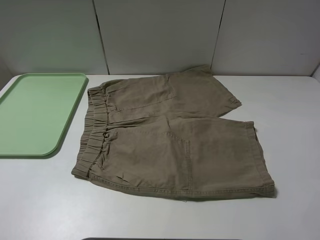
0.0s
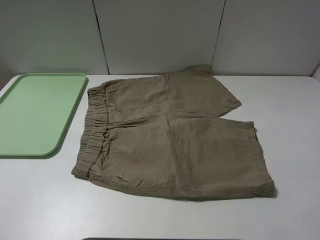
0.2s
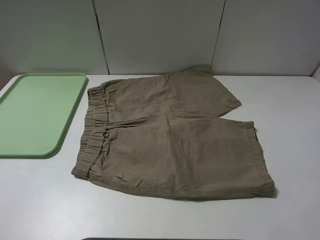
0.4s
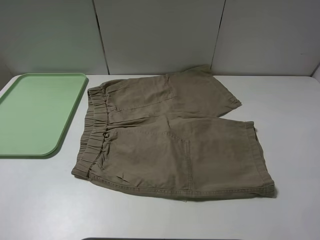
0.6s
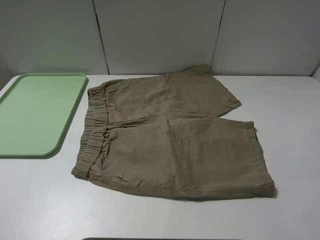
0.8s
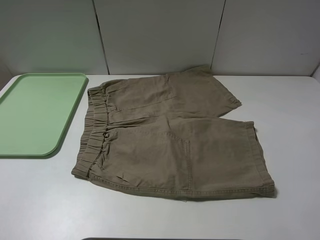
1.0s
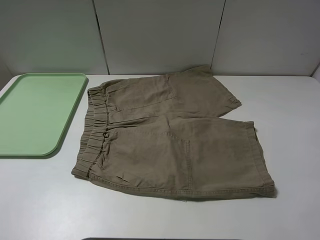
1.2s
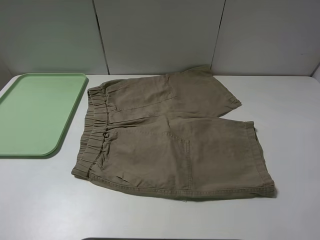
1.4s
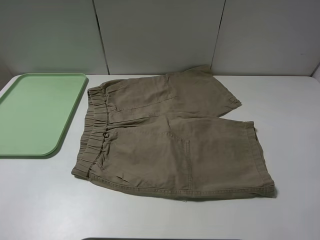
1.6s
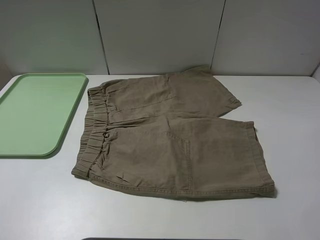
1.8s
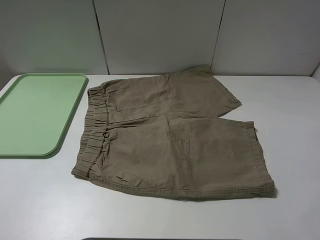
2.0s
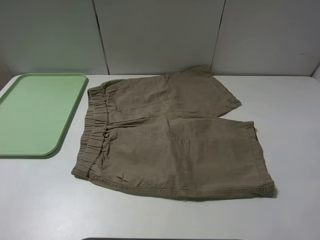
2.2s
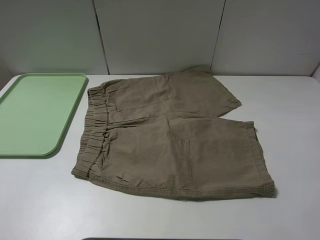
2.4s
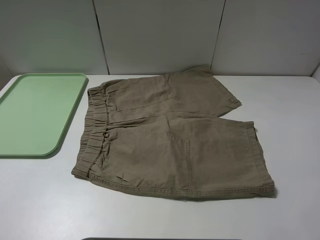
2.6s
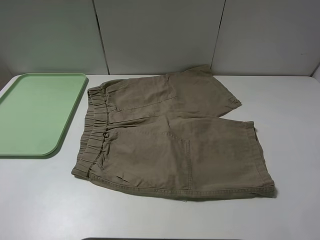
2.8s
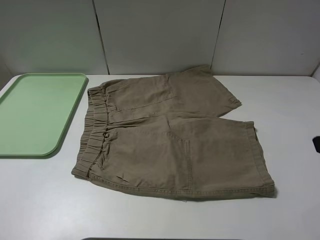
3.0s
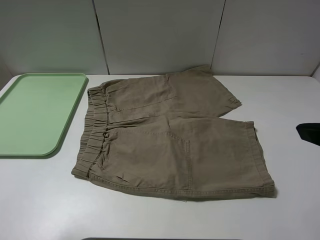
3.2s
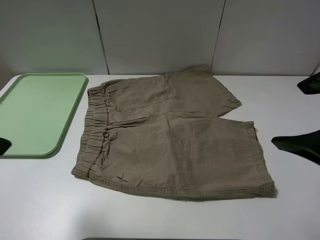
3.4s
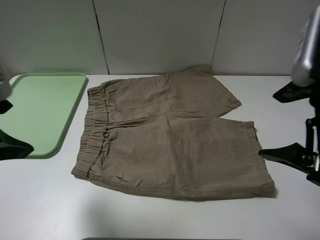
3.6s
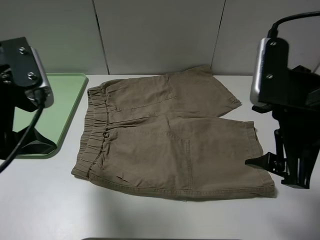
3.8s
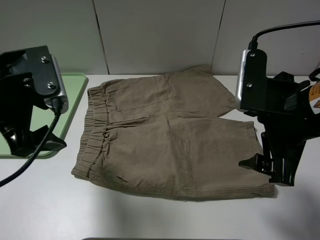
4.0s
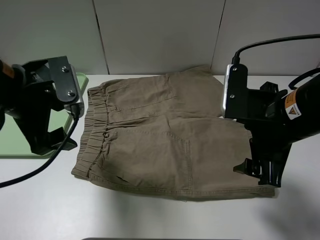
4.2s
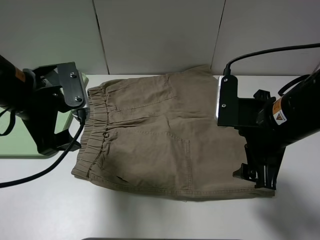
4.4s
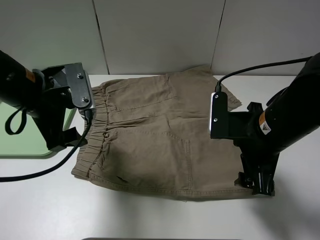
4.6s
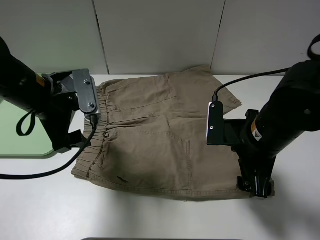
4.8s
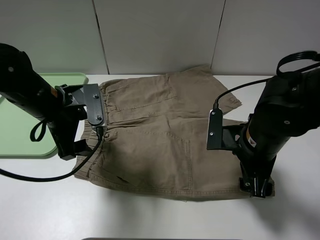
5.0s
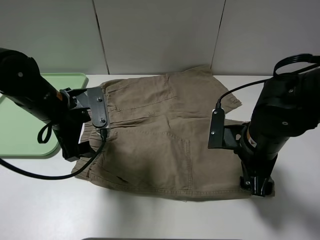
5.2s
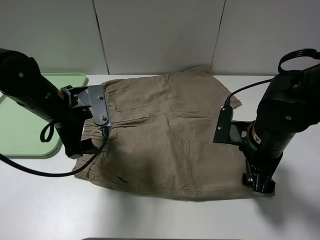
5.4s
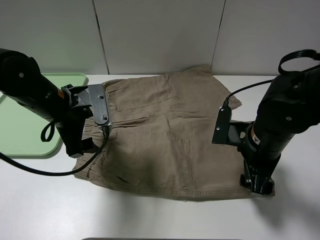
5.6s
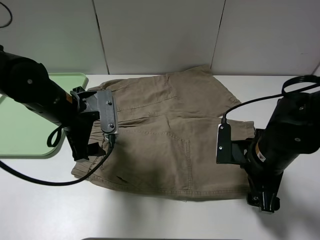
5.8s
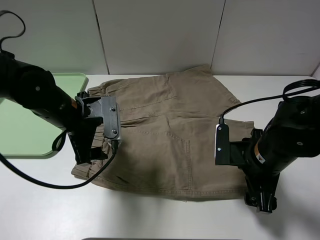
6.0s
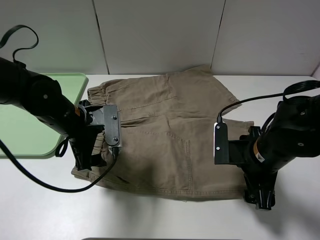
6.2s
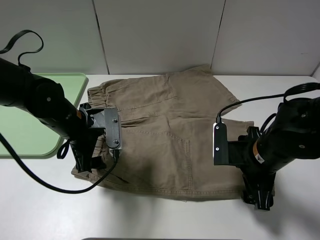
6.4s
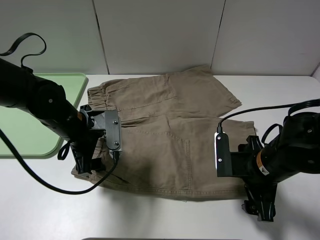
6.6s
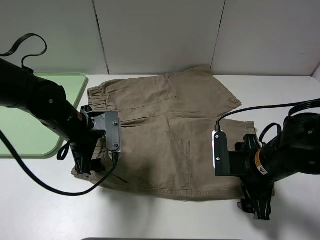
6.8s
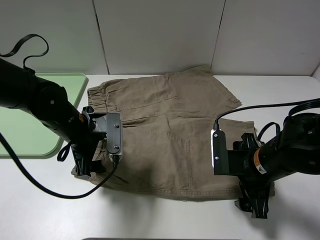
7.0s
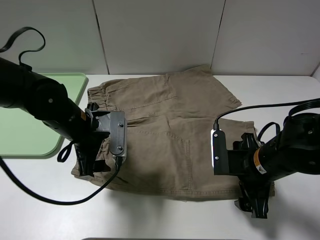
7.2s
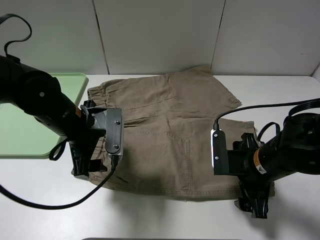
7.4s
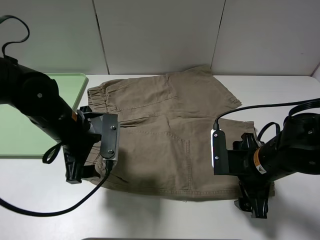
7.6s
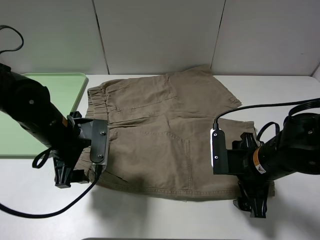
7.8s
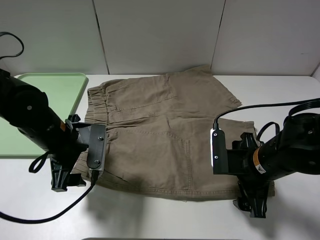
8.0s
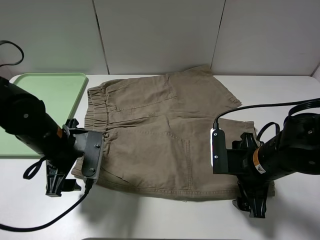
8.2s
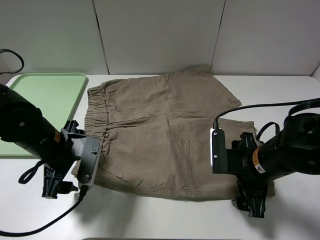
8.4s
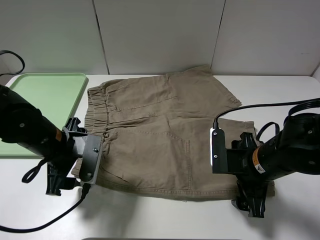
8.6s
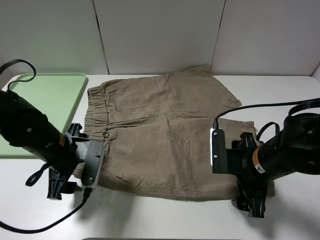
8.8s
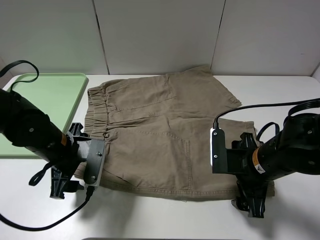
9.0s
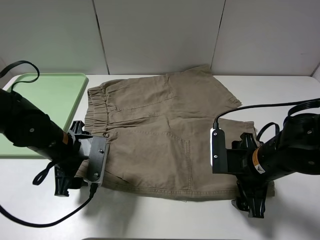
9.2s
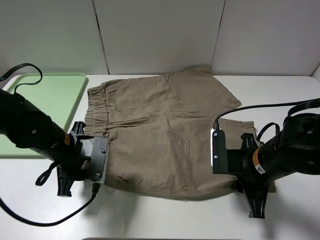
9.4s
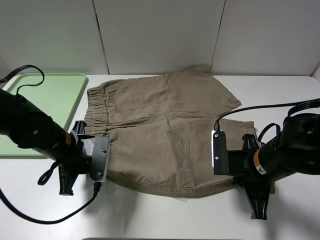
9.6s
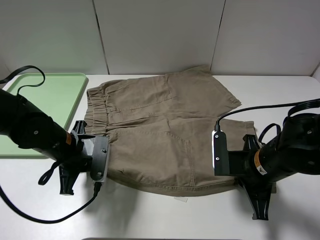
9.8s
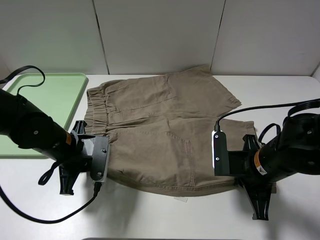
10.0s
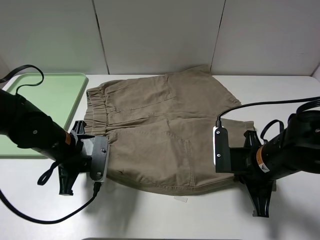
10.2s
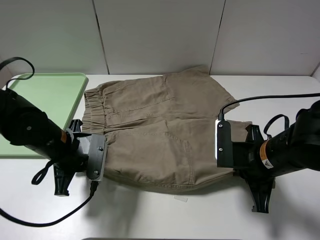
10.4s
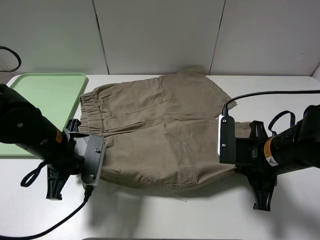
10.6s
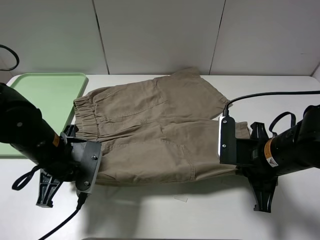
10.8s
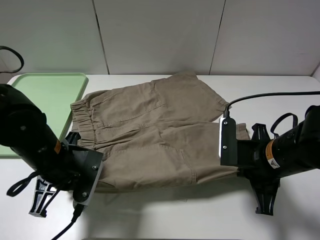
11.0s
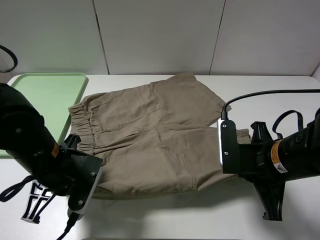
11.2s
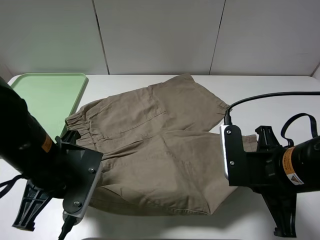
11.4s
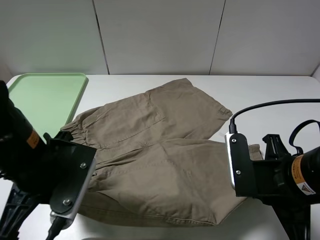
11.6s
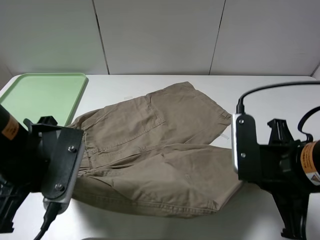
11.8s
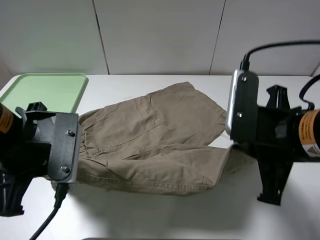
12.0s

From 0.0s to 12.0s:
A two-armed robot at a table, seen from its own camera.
Task of the whole recording: fold the khaki jeans in half with two grippers, then fold them in half again, and use the left claw to place the folded fold khaki jeans on the tray.
Step, from 0.0s to 9.6s: Grasp the khaki trousers with the left gripper.
From 0.0s to 1.6s: Both grippers stay about where they are.
From 3.0s to 4.4s: The right gripper goes approximately 15 cm downward, to the left and forward, while the left gripper moves forward, downward and to the right, approximately 20 cm.
From 4.4s to 6.0s: The two grippers go some 10 cm downward.
From 6.0s to 7.6s: There are only small adjustments of the grippers.
From 7.6s to 9.0s: The left gripper shifts by about 5 cm.
From 9.0s to 10.4s: The left gripper closes, while the right gripper closes up.
From 10.4s to 12.0s: The left gripper heads upward and backward, covering some 15 cm, while the right gripper travels upward by approximately 10 cm.

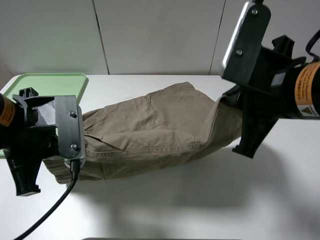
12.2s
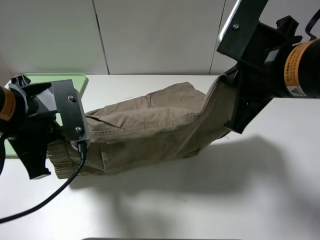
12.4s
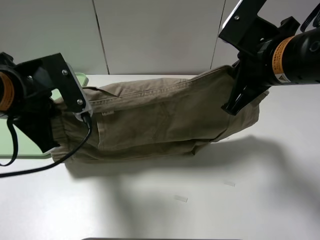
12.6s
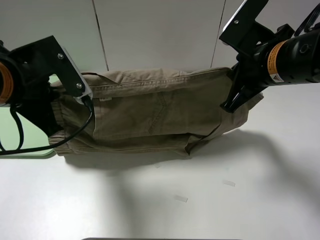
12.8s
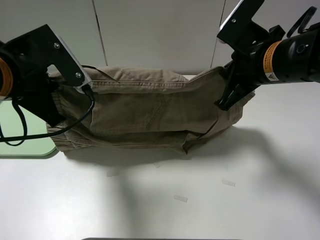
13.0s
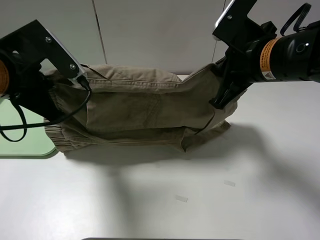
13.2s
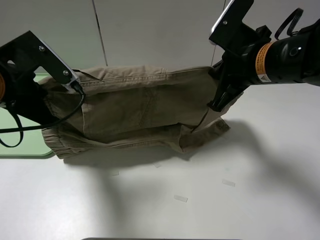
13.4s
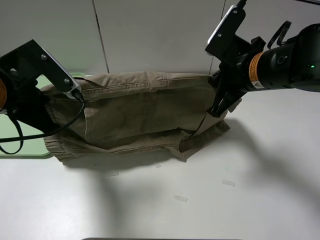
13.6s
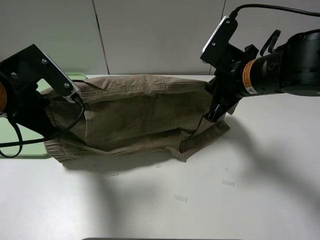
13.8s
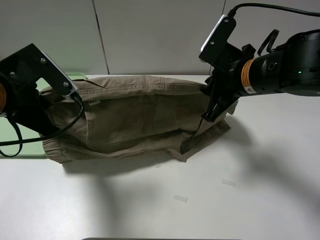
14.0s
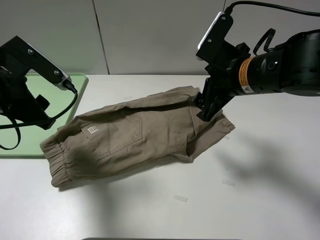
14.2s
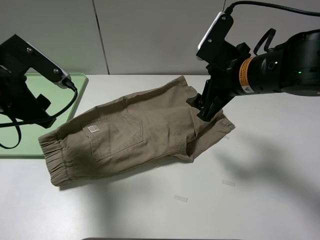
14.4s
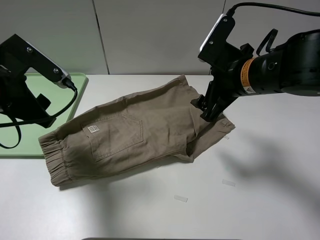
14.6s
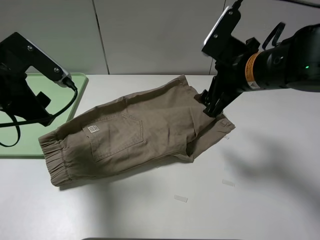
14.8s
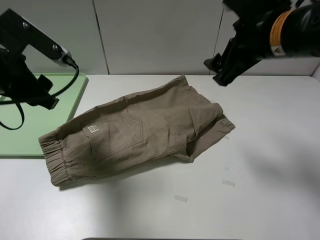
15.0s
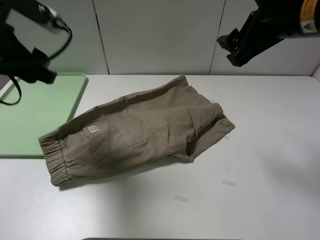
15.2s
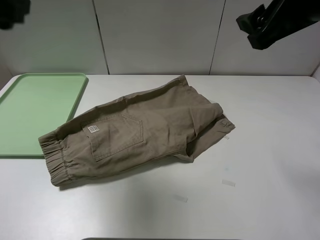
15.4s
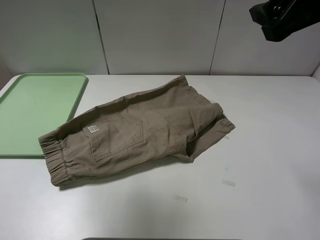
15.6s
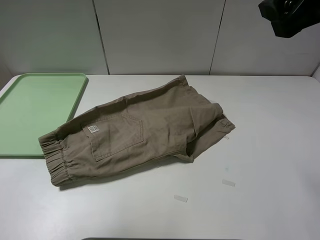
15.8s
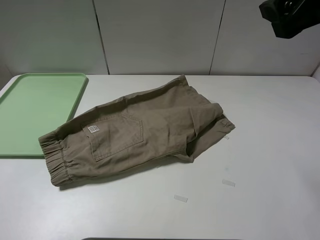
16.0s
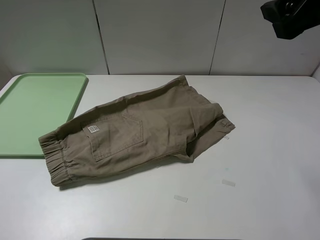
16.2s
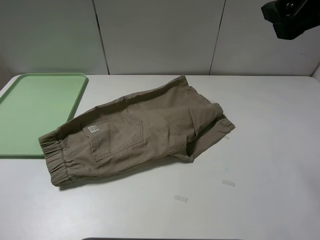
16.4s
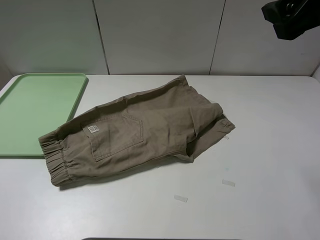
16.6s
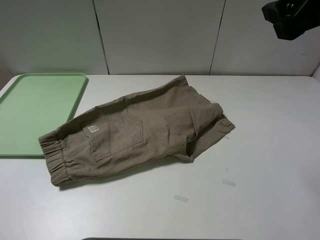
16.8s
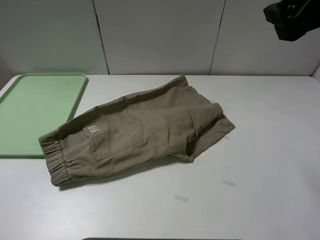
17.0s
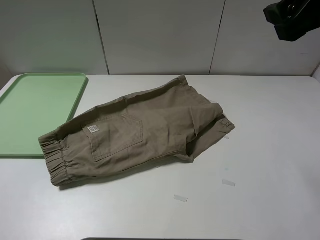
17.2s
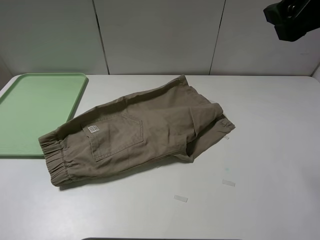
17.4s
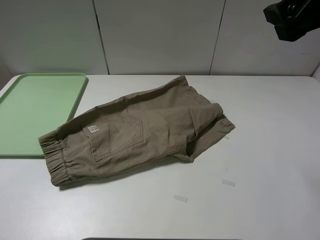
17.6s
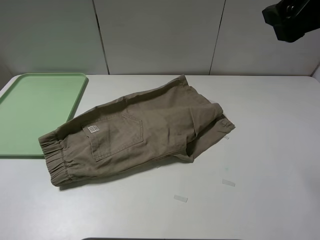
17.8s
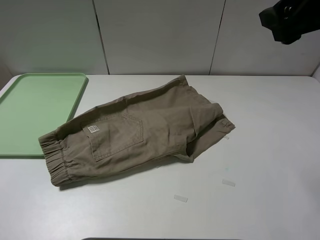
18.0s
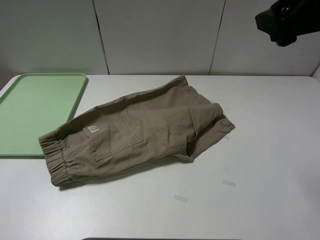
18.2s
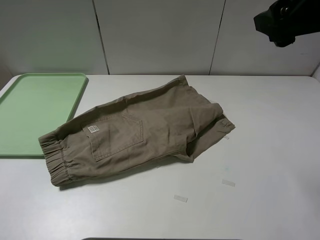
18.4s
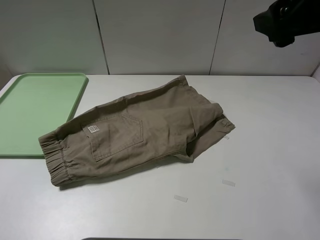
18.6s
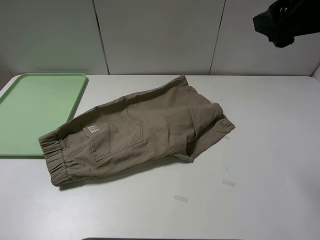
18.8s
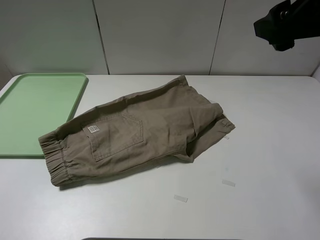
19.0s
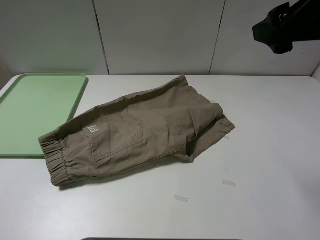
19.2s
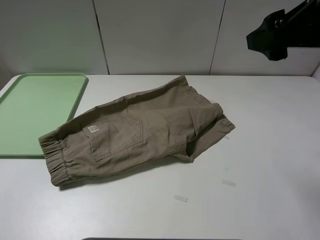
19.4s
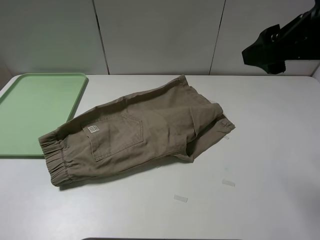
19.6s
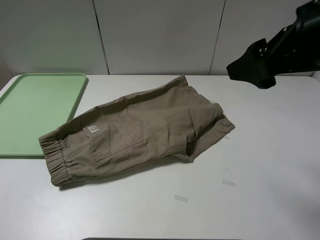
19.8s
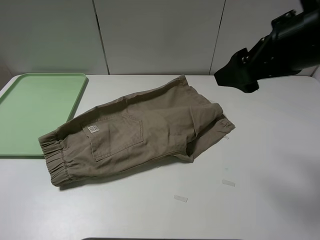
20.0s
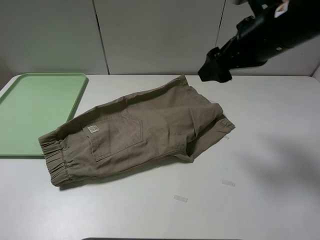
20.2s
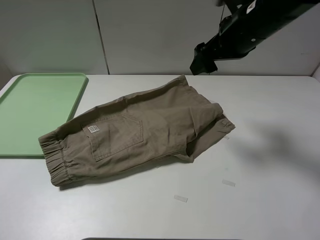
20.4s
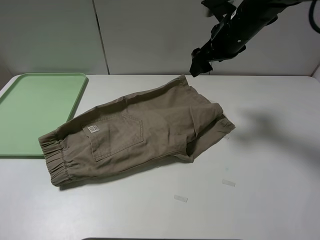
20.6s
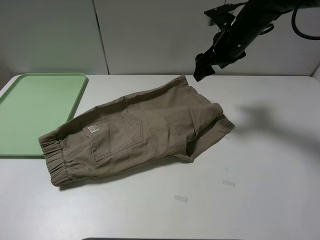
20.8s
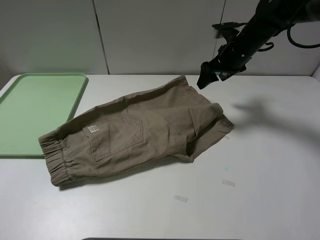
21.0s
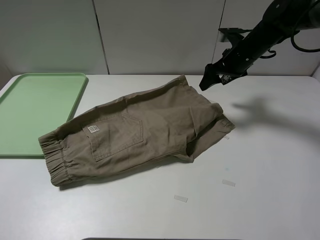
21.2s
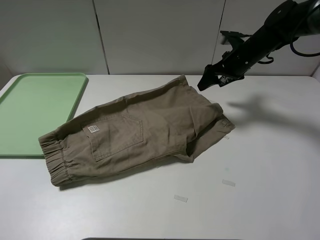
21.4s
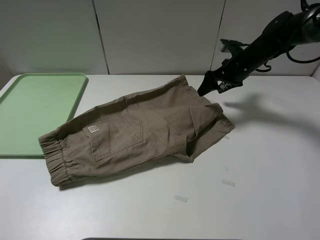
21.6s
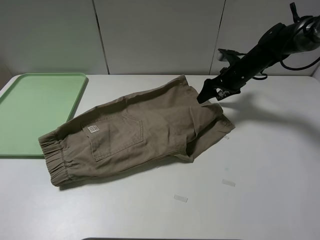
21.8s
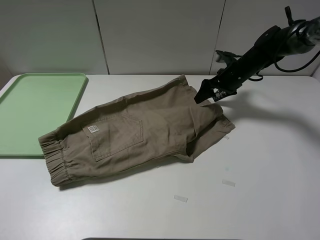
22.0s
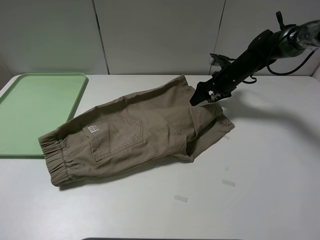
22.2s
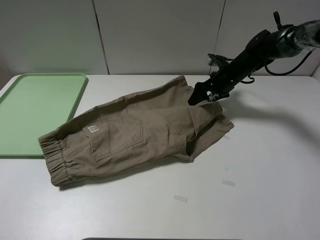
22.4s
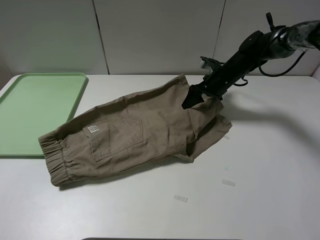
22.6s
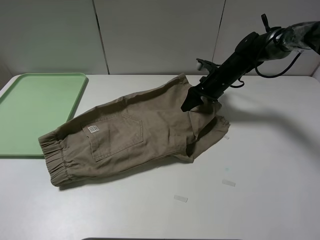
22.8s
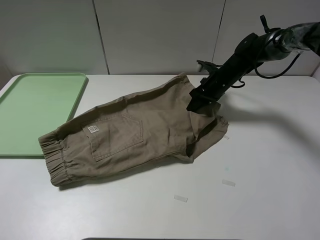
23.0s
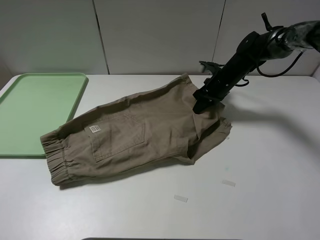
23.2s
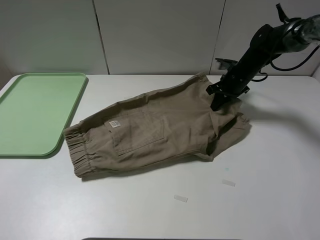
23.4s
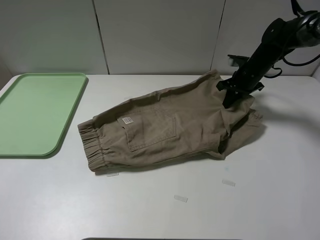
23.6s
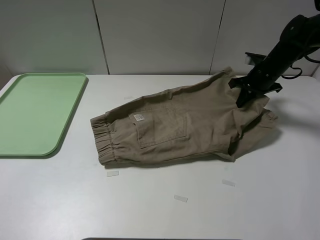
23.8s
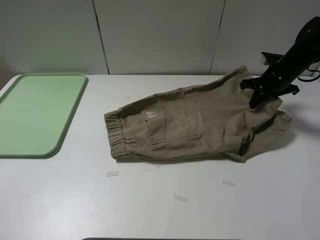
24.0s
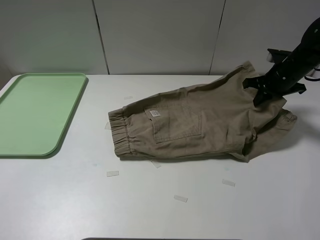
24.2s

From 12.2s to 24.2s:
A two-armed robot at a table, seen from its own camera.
Task of the whole recording: fold the khaki jeans in half with two grippers, then fold them in half again, and use the left claw to place the folded fold khaki jeans on the tray.
Step, from 14.4s to 23.2s: Grasp the khaki trousers with the right gripper.
From 12.2s to 13.8s: The right gripper shifts approximately 10 cm forward and downward.
From 13.8s to 15.2s: Both grippers travel together upward, approximately 10 cm. The left gripper opens up. Meanwhile the right gripper opens its fingers.
From 15.2s to 16.6s: The right gripper shifts by about 5 cm, while the left gripper shifts approximately 25 cm backward and to the left.
From 19.8s to 21.2s: The right gripper is displaced forward and downward by about 30 cm.
From 21.2s to 22.6s: The right gripper shifts roughly 10 cm downward.
From 22.6s to 24.2s: The right gripper is displaced to the right, upward and backward by roughly 15 cm, and closes its fingers.
